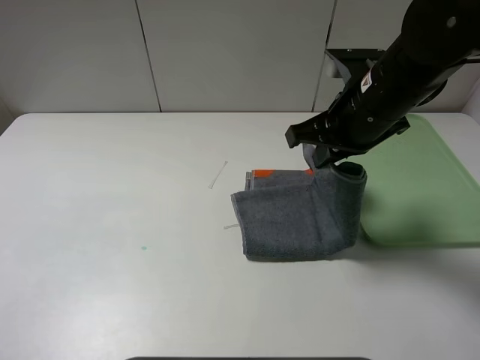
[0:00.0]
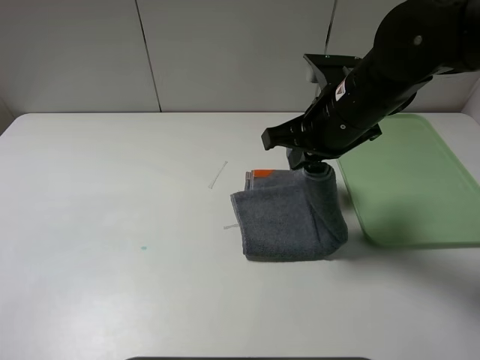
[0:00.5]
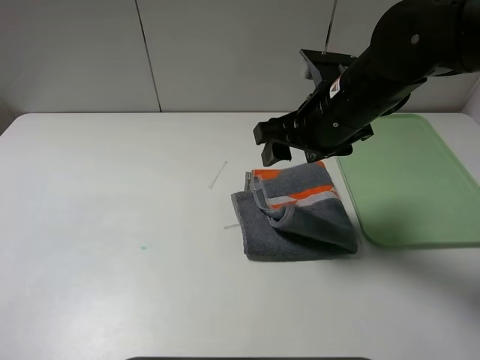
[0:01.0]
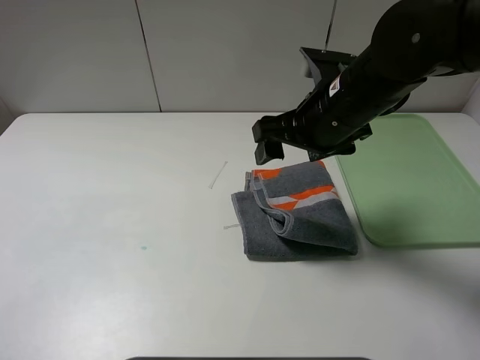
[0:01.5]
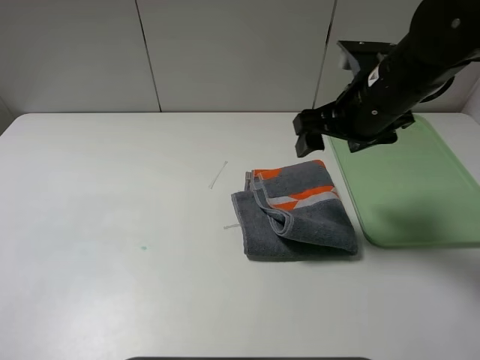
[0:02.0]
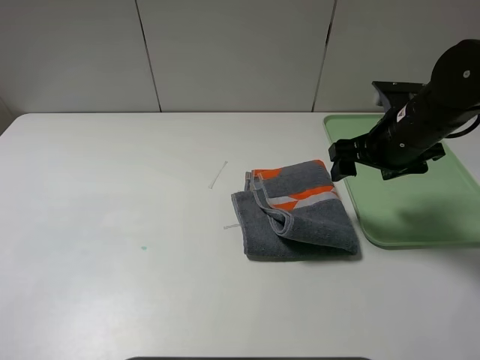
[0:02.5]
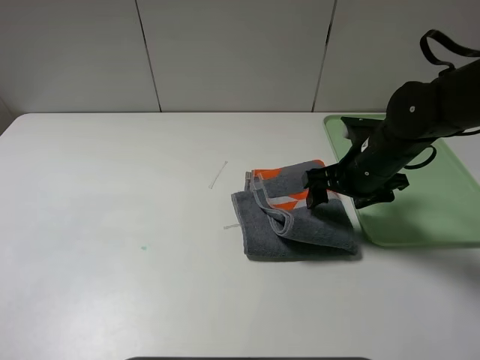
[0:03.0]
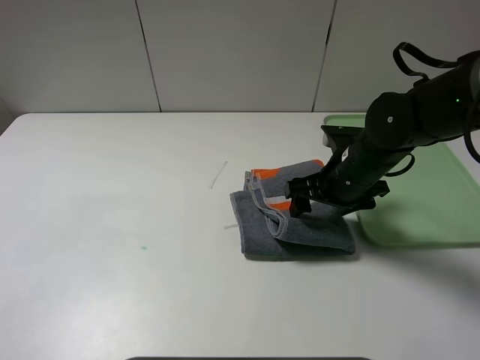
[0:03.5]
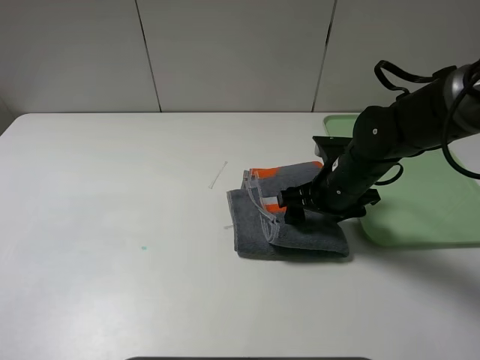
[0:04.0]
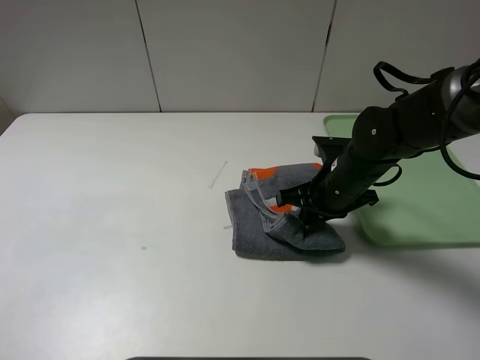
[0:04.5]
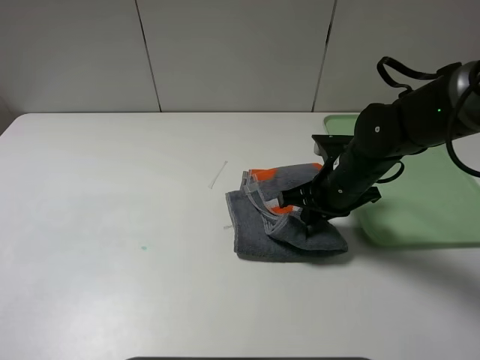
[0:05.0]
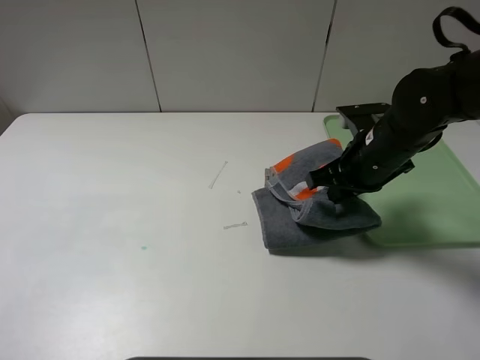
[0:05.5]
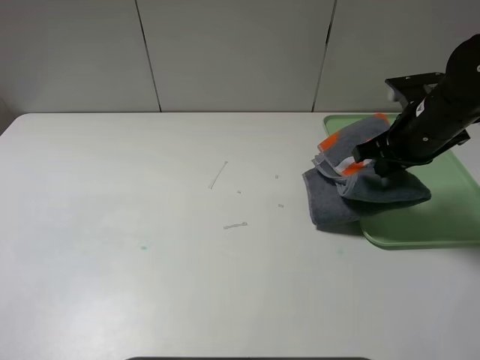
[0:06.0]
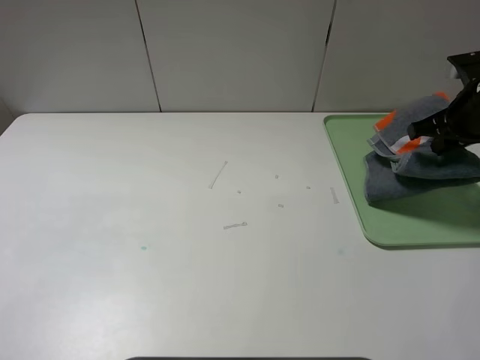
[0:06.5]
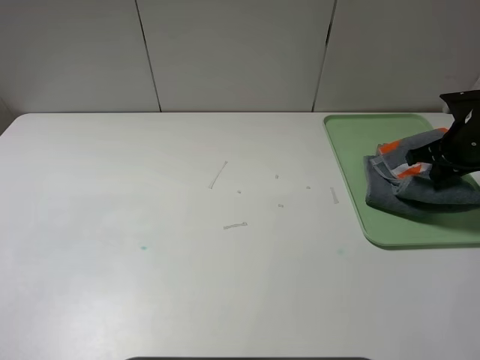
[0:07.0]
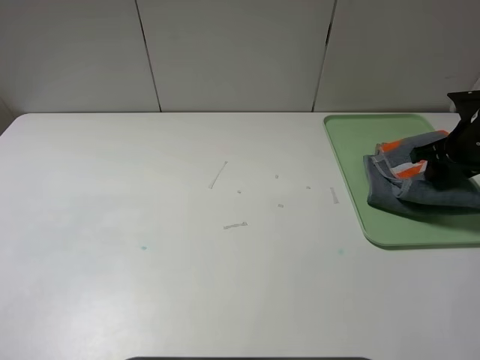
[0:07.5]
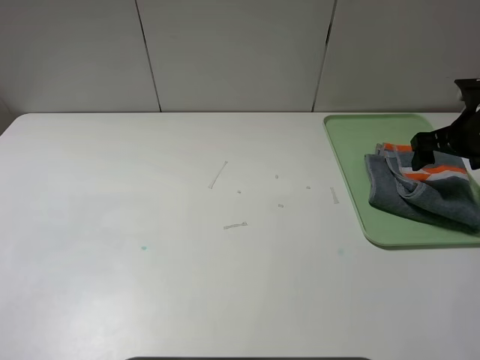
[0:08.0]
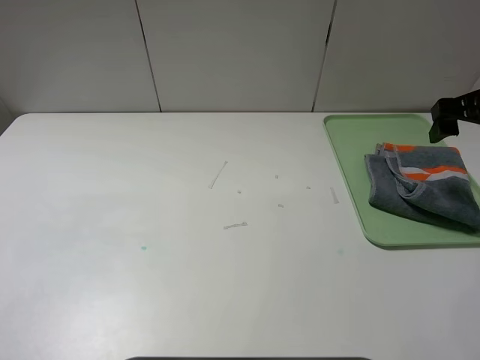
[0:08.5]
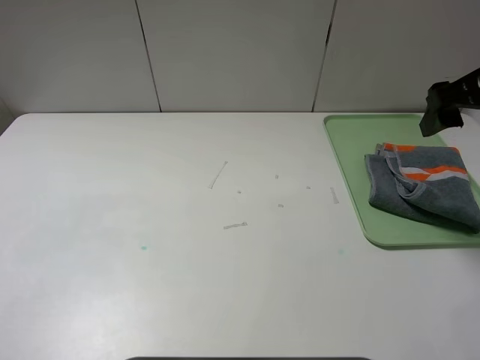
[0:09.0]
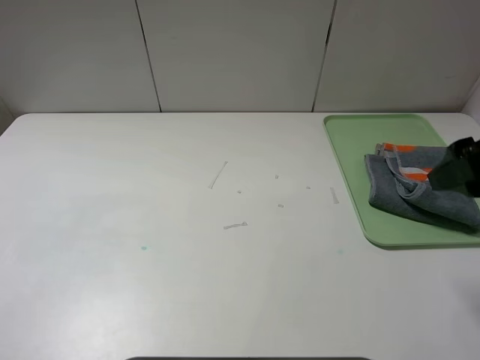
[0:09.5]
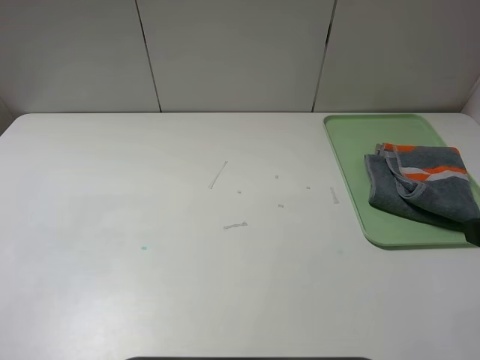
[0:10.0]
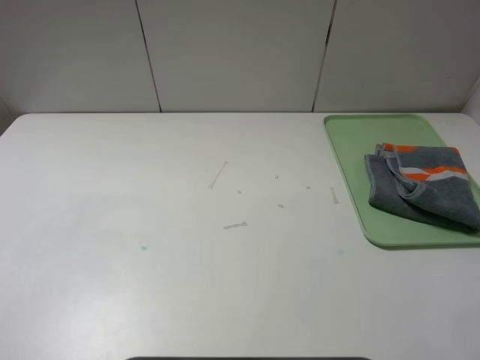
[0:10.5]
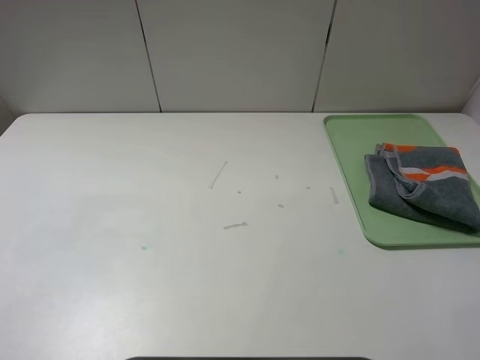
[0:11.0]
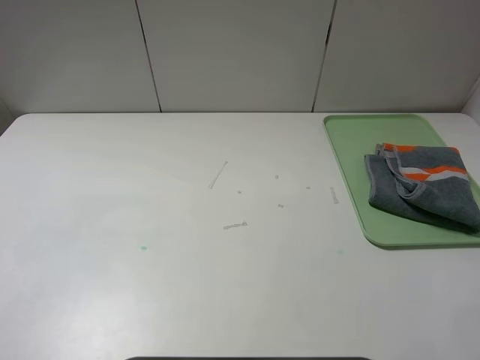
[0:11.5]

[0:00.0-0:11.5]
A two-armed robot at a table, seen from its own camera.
Step, 0:01.5 to 0:07.5: Place the folded grey towel on the tray with the right gripper.
0:00.0 to 0:02.0: The right gripper opens up.
0:02.0 to 0:04.0: The right gripper moves downward, approximately 15 cm.
0:04.0 to 0:06.0: The right gripper shifts about 15 cm to the right and upward, and closes its fingers.
0:06.0 to 0:07.5: The right gripper moves to the right, some 10 cm, and opens.
0:07.5 to 0:09.5: The right gripper is displaced backward, upward and to the left by approximately 25 cm.
0:09.5 to 0:11.5: The right gripper travels backward by about 15 cm.
